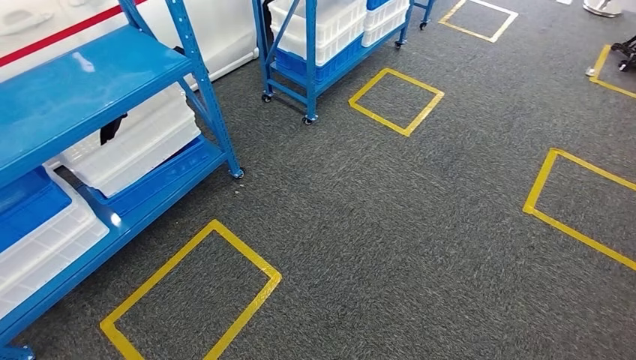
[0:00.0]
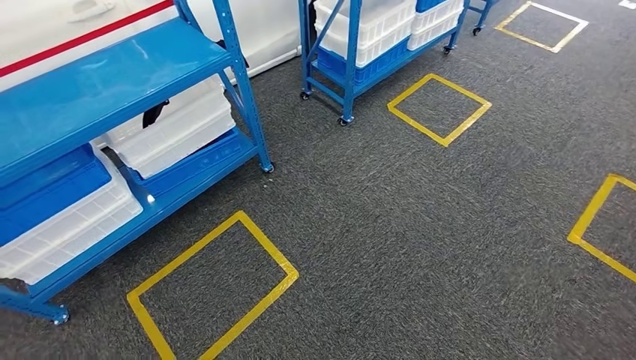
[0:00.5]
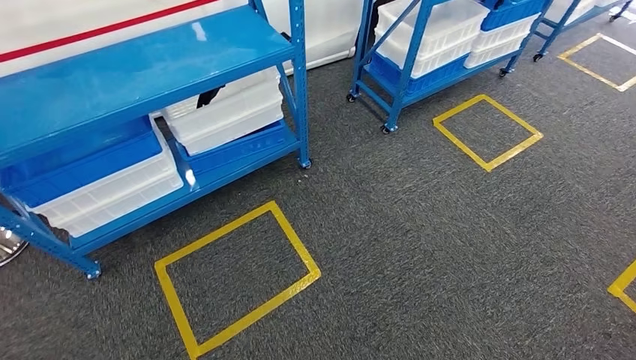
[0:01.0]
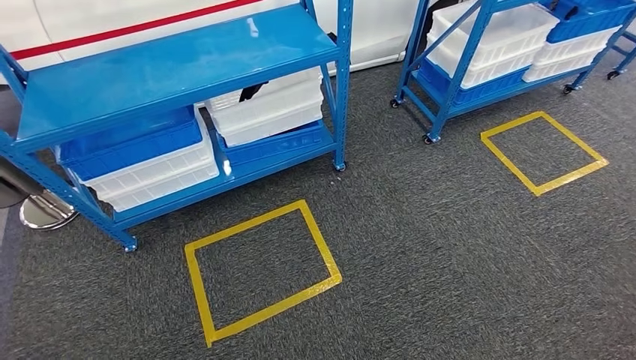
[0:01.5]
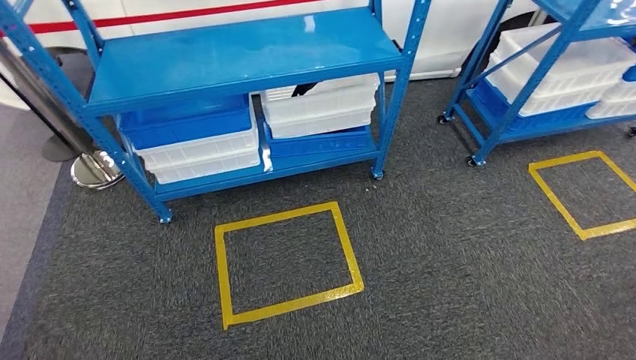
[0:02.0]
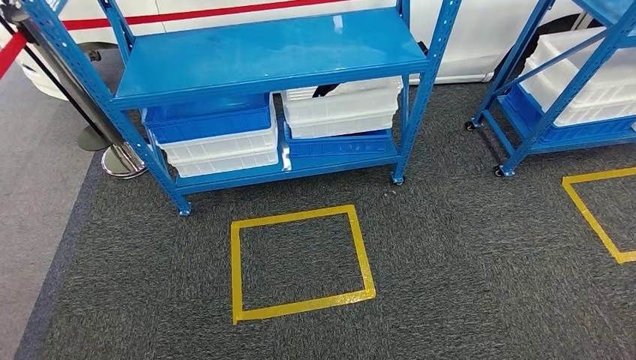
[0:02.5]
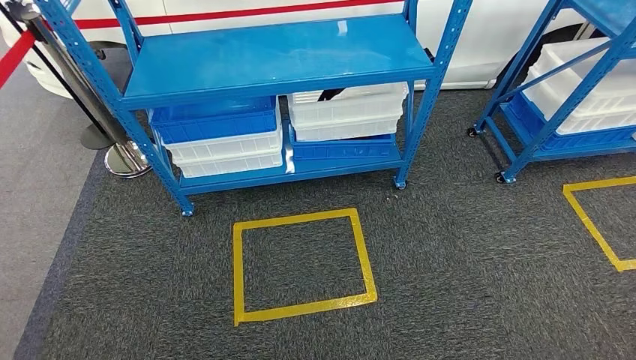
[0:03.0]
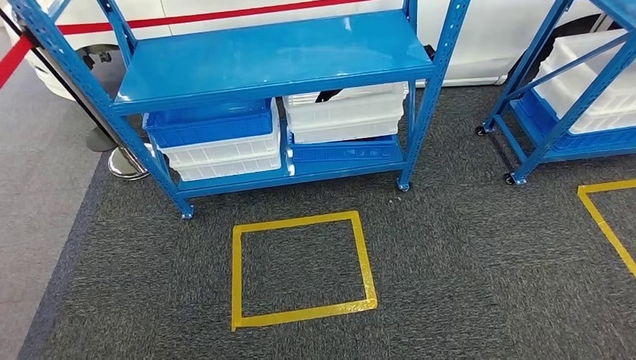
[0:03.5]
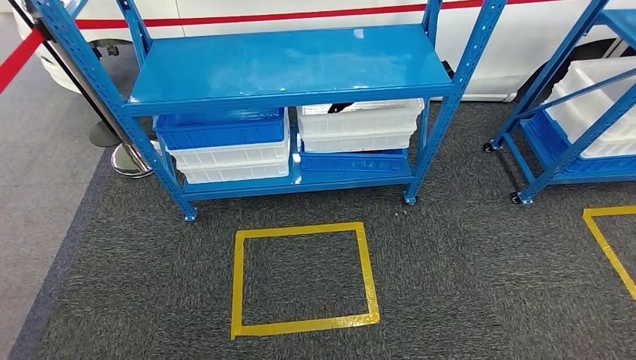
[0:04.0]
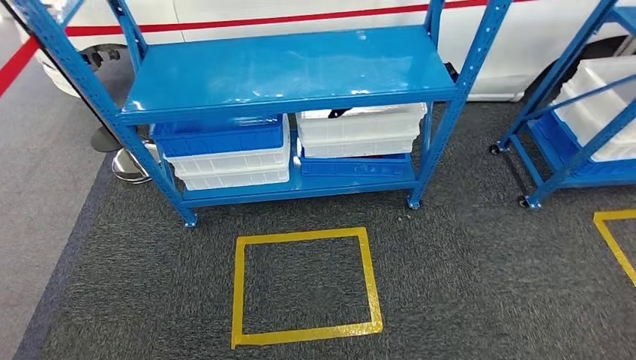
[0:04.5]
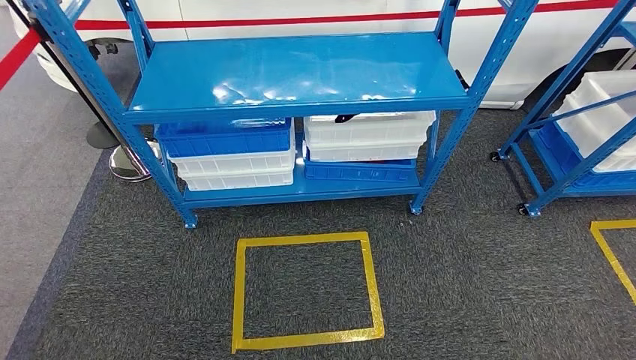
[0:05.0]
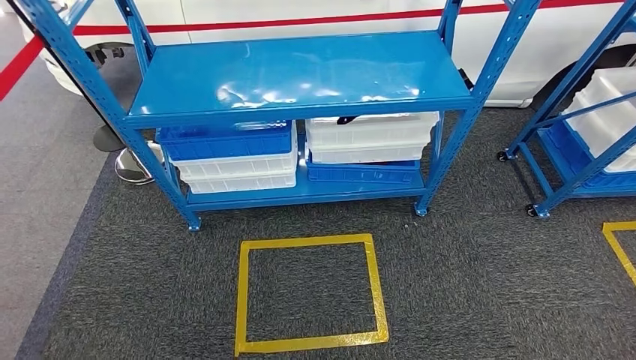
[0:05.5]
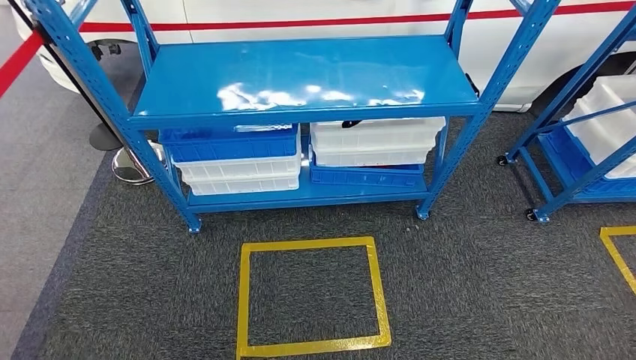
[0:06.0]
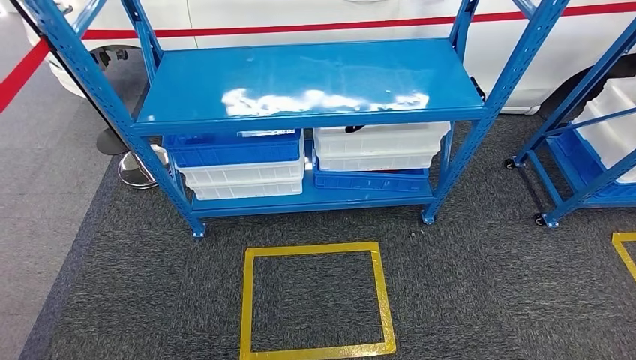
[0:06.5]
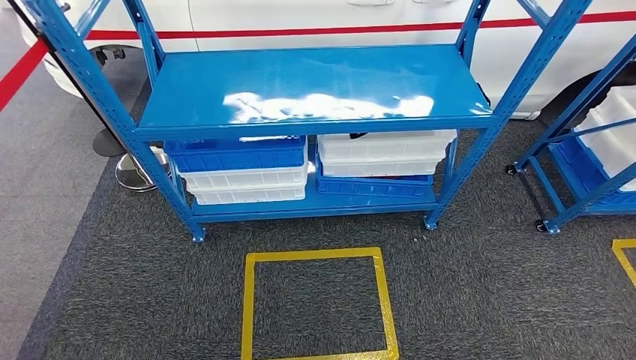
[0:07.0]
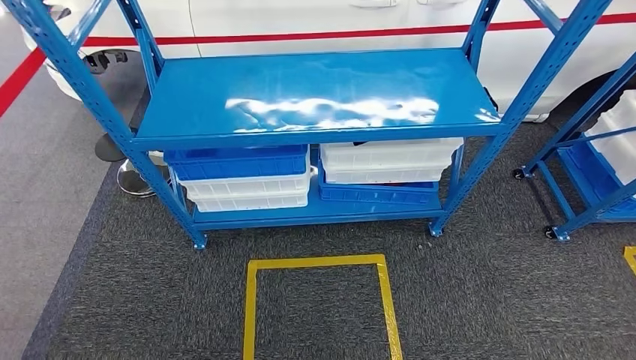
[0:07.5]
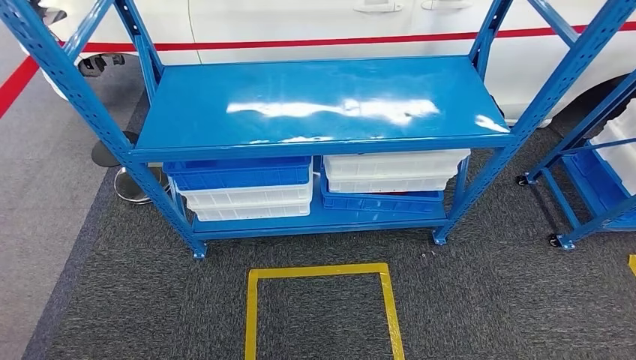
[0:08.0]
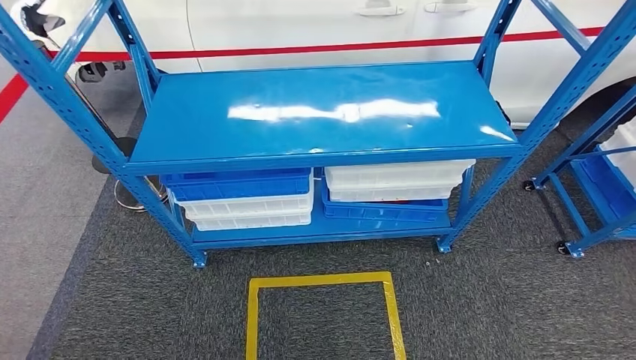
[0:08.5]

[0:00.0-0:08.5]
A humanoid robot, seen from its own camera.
Step, 0:00.0 to 0:08.5: Return to the initial position at the shelf.
